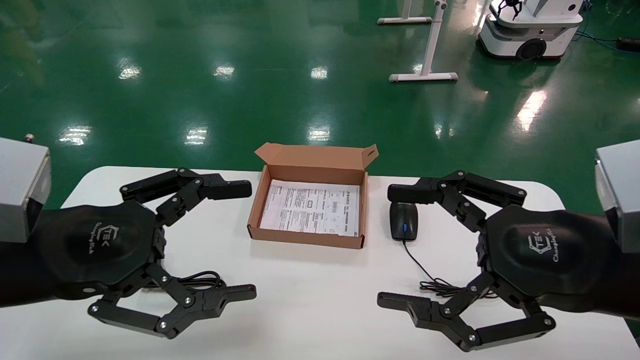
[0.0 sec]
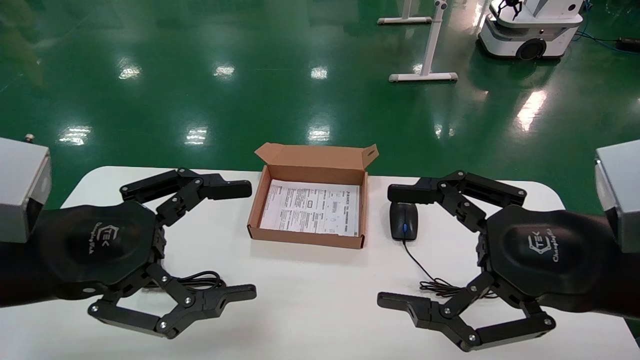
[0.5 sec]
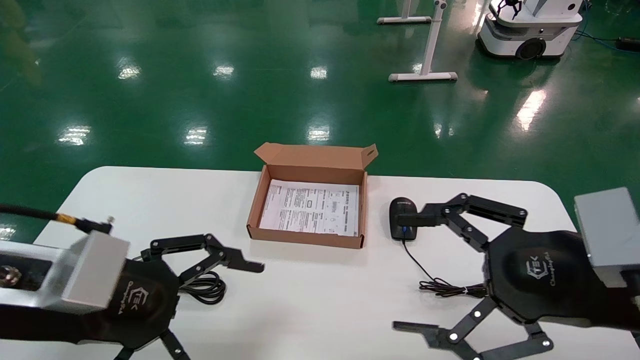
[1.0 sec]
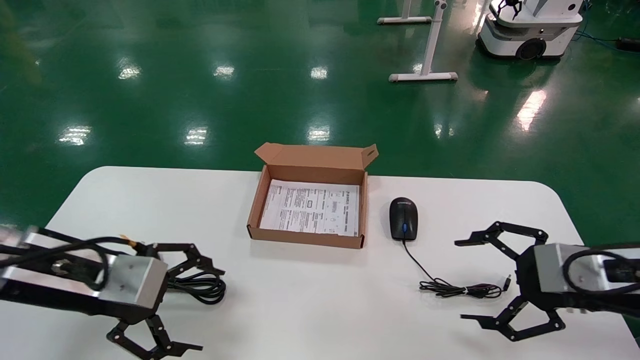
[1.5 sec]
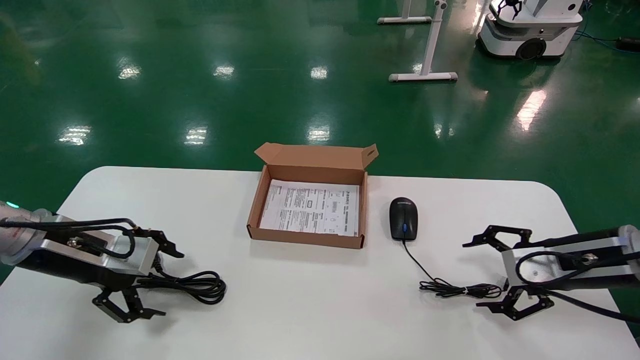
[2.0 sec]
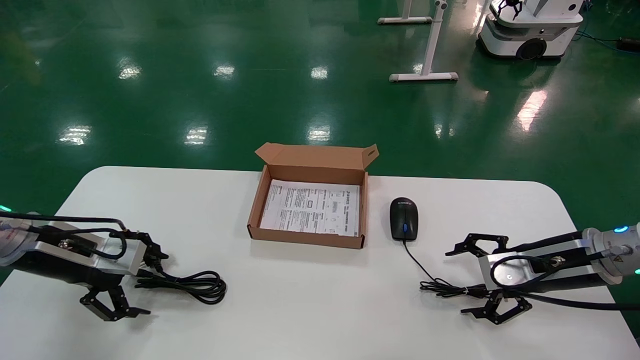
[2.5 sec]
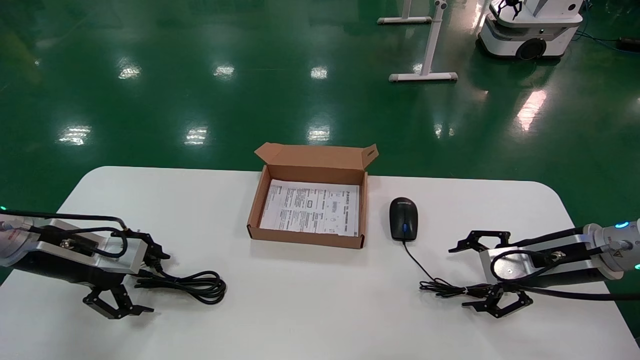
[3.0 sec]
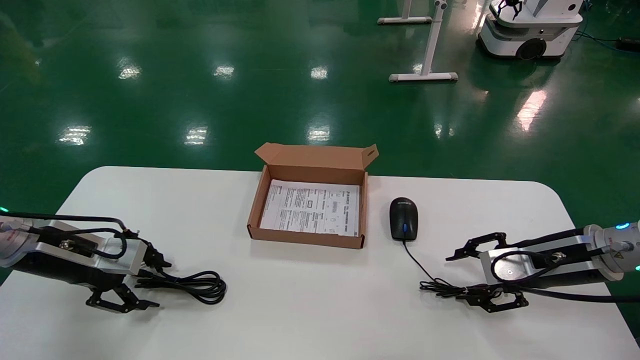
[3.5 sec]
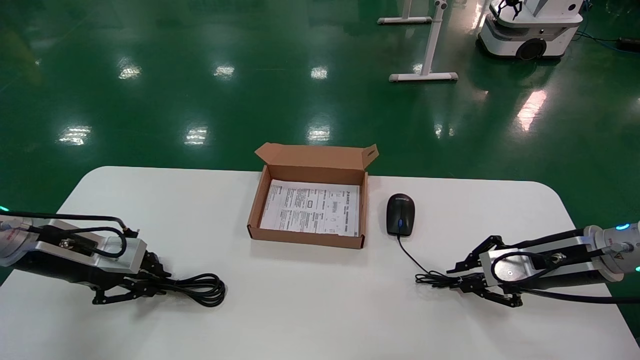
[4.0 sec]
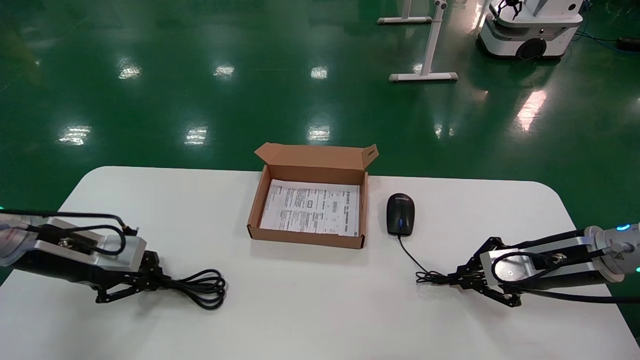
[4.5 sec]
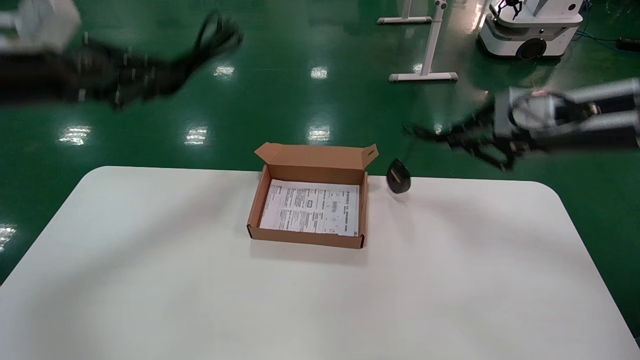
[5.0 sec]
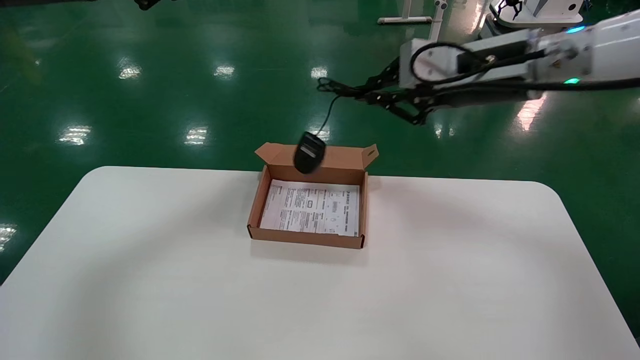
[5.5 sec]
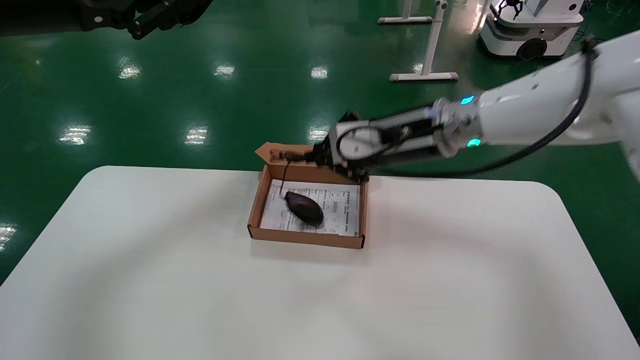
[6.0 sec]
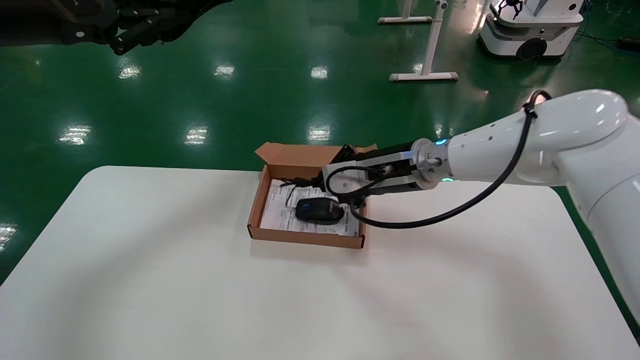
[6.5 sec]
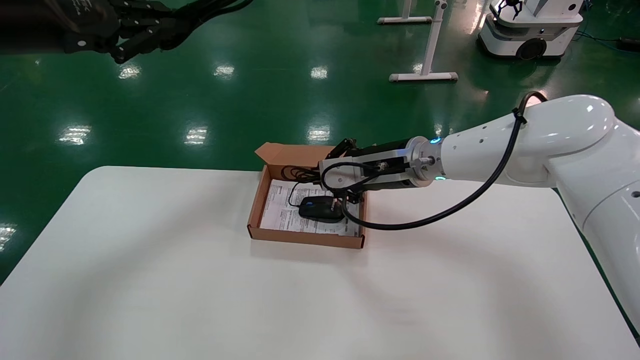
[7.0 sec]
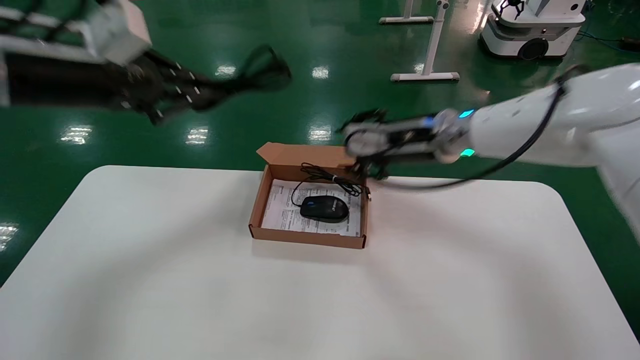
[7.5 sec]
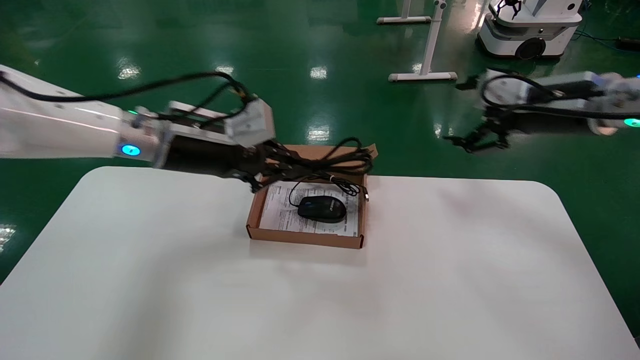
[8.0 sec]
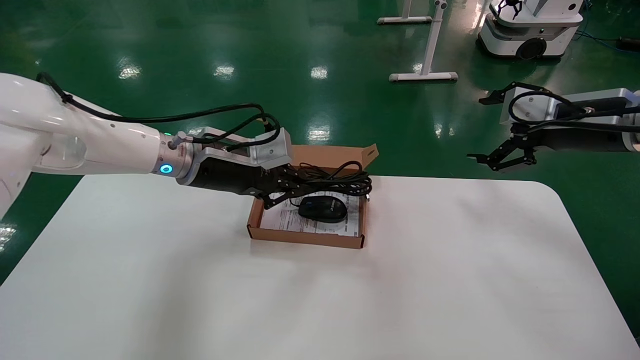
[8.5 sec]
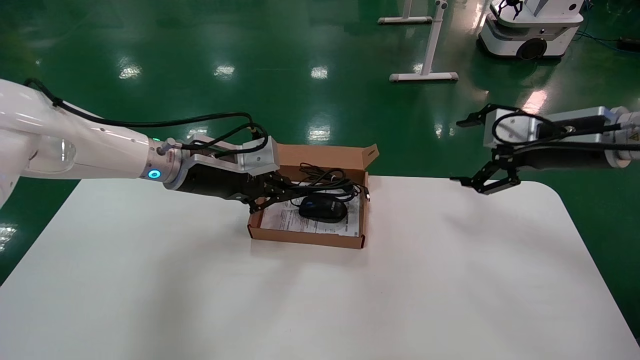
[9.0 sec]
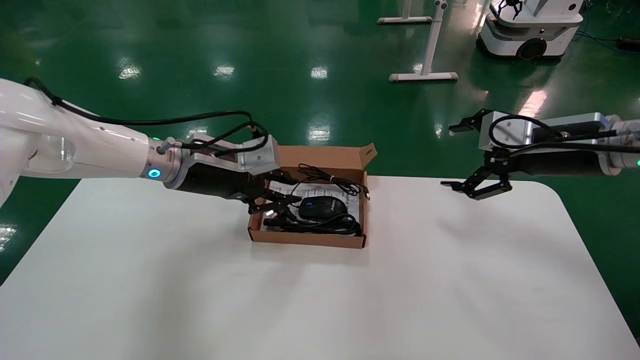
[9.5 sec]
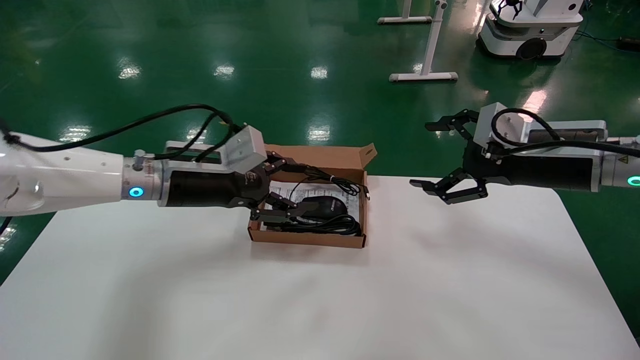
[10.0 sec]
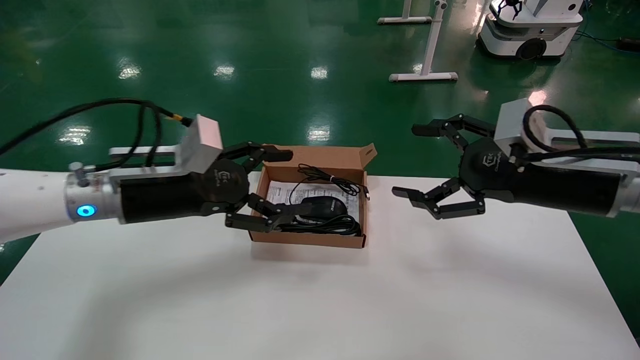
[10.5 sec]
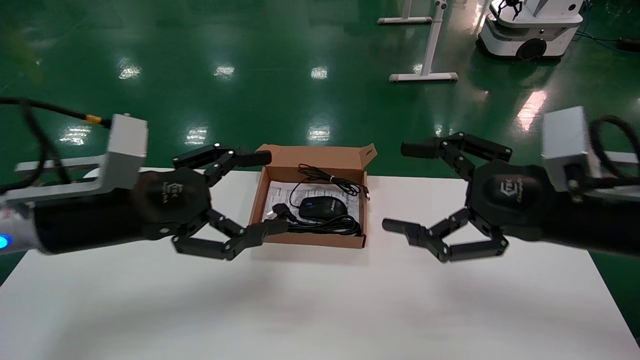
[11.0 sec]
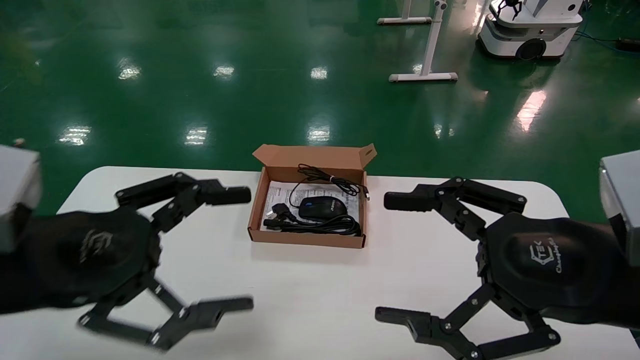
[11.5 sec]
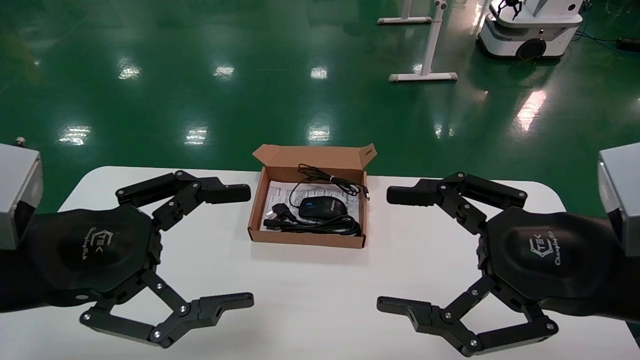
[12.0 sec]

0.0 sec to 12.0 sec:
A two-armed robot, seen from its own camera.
Step, 0.5 sec to 4.0 sec: Grab and lift both the mouse and power cord from the accessory packaging area at the same time.
Step, 4.5 sec to 9.5 sec: Place the mouse and power cord into the box.
0.0 sec to 2.0 sec: The left gripper shifts approximately 20 cm forward, to the left and downward. Meanwhile the right gripper goes about 20 cm forward, to the right and downward.
2.0 sec to 4.0 sec: The left gripper closes up. Meanwhile the right gripper closes up.
4.0 sec to 6.0 sec: The left gripper goes approximately 30 cm upward, while the right gripper goes some 25 cm to the left and upward.
6.0 sec to 8.0 sec: The right gripper shifts about 20 cm to the right, and opens up. Meanwhile the left gripper heads downward, to the right and forward, covering about 20 cm.
8.0 sec to 10.0 sec: The two grippers go some 5 cm downward. The left gripper opens.
10.0 sec to 12.0 sec: The grippers both shift backward by about 20 cm. The left gripper opens.

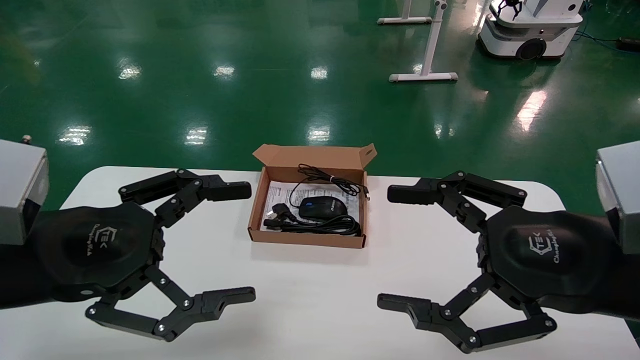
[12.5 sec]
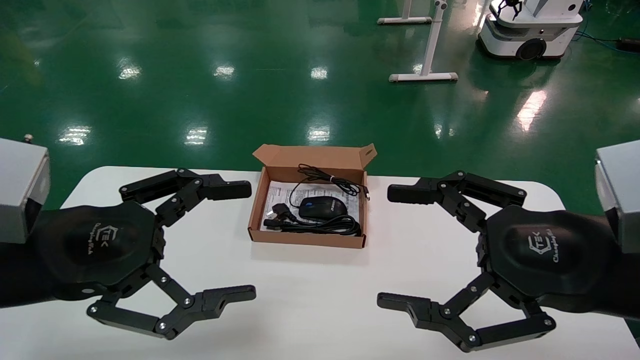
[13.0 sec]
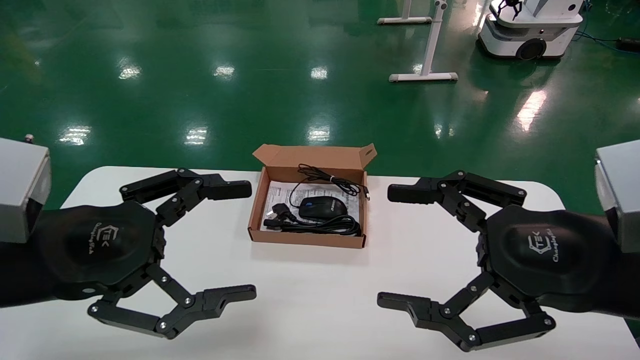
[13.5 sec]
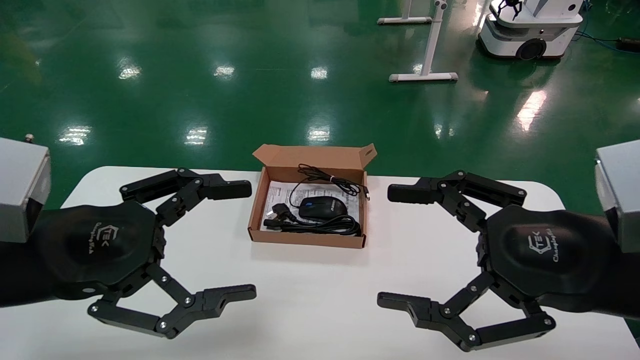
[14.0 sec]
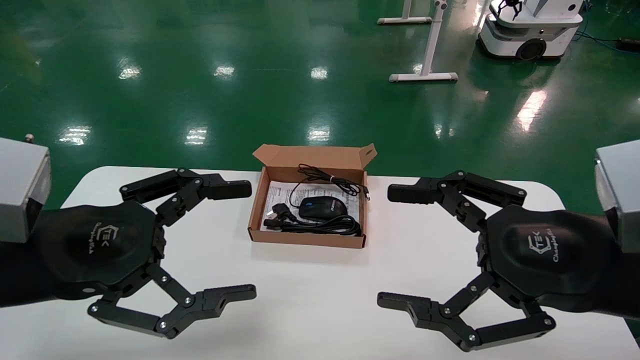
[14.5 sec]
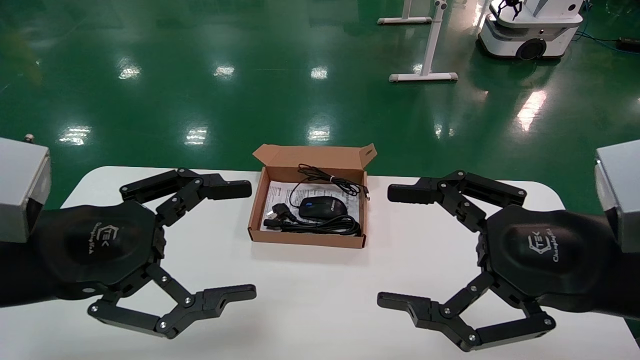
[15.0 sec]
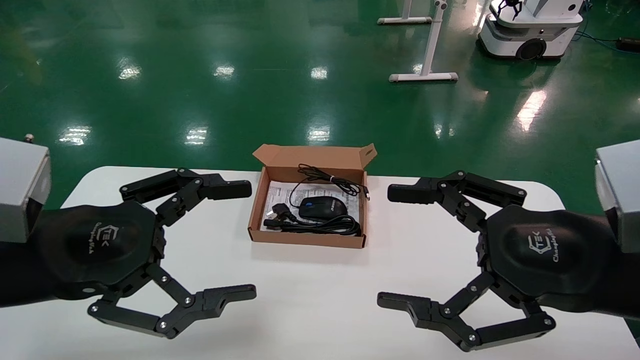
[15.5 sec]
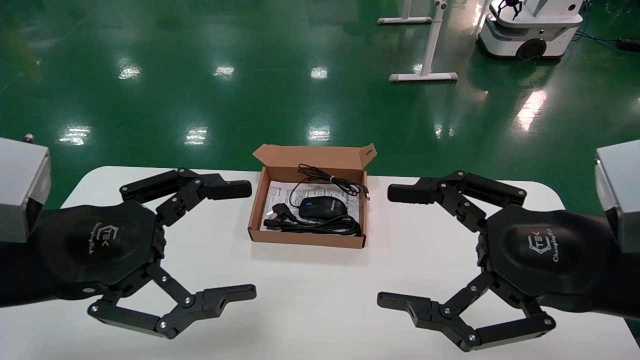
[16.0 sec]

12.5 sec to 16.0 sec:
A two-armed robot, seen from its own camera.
12.5 sec to 16.0 sec: Both grippers stay put.
